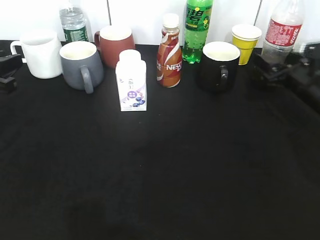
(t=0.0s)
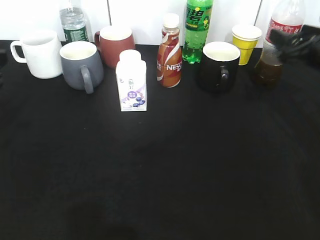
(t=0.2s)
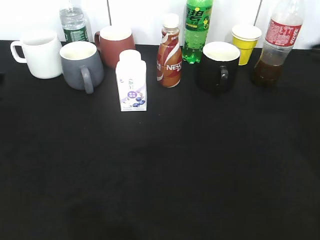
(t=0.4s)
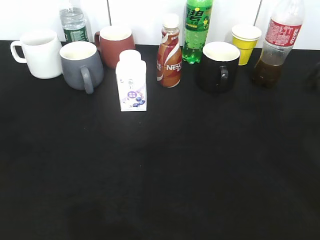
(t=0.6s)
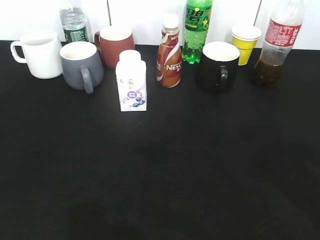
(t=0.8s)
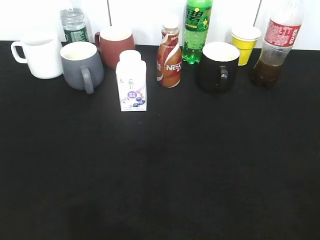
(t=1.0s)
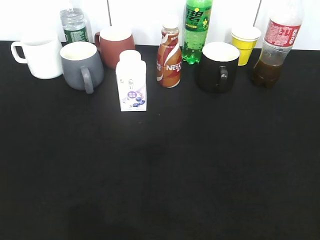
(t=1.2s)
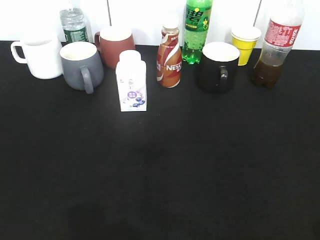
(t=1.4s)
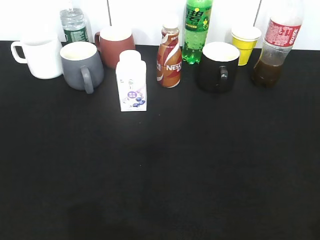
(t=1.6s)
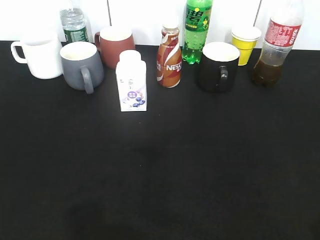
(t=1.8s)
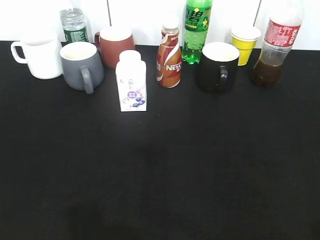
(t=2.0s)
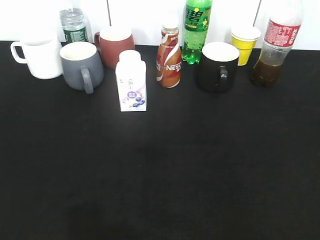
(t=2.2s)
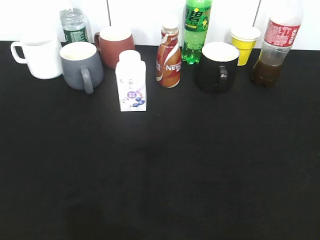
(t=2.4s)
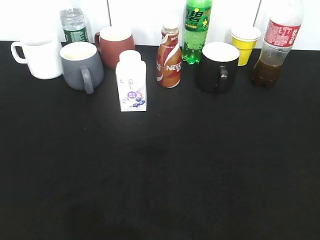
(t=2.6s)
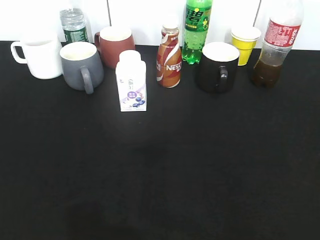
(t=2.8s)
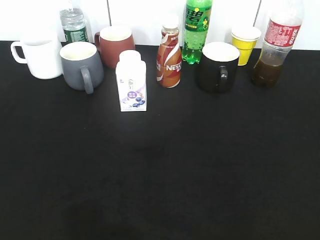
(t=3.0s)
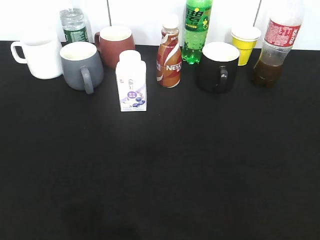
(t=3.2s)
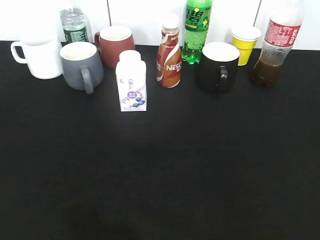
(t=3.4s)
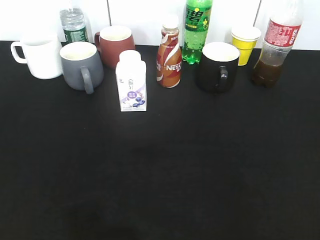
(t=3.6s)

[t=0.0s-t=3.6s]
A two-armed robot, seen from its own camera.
t=0.0s to t=1.8s: The left gripper moves backward, some 25 cm; the right gripper heads backward and upward, covering roughly 40 cm.
